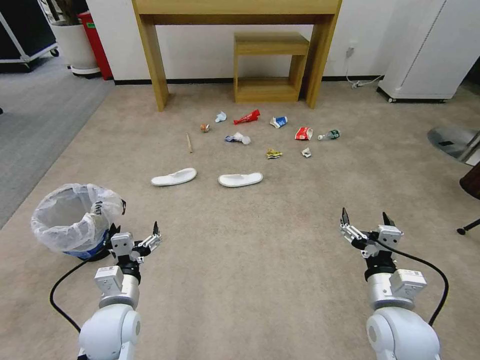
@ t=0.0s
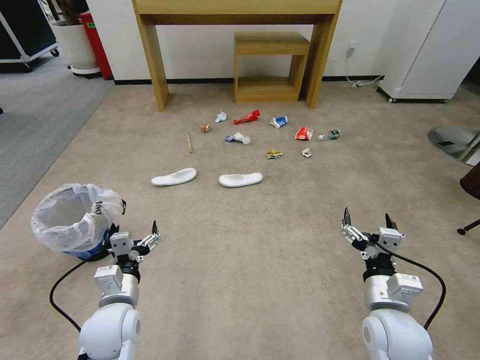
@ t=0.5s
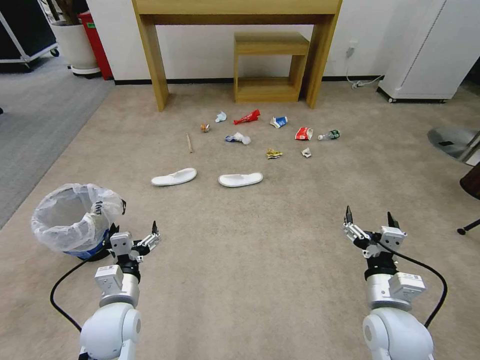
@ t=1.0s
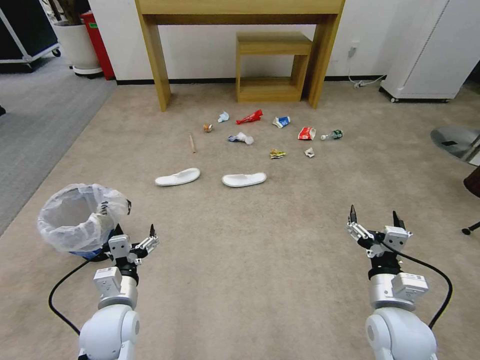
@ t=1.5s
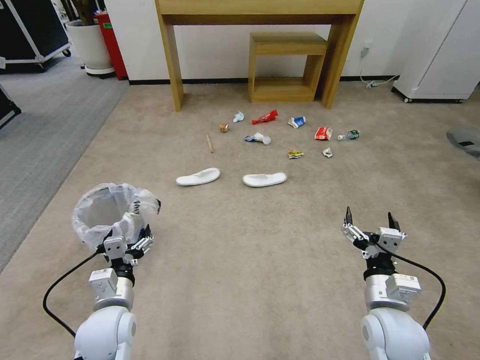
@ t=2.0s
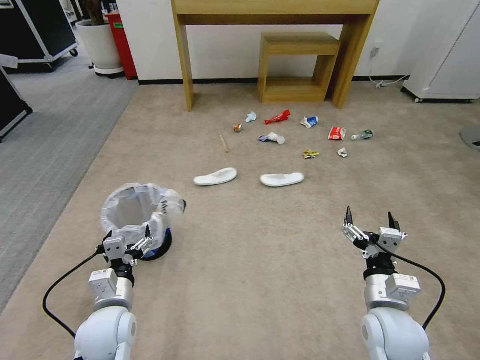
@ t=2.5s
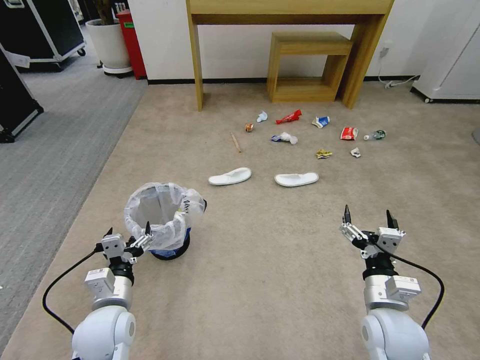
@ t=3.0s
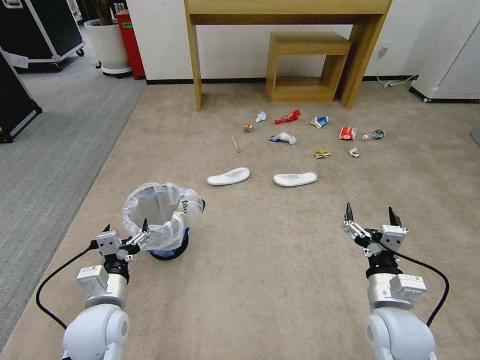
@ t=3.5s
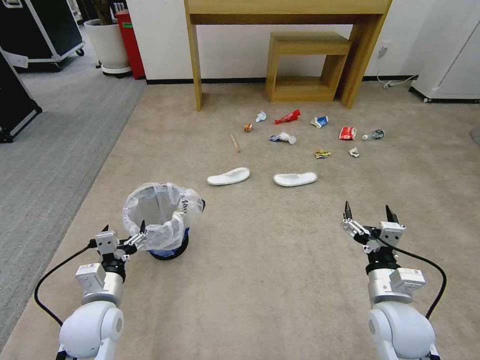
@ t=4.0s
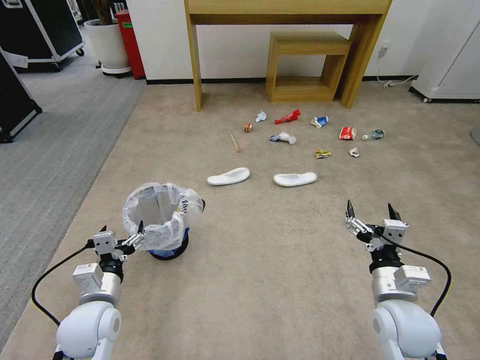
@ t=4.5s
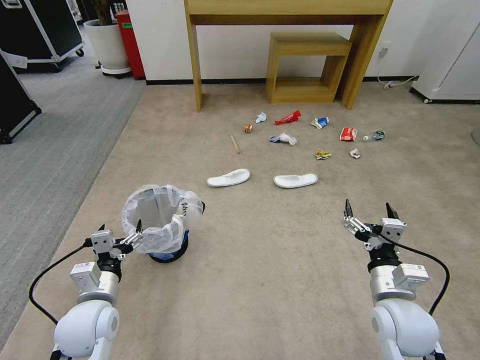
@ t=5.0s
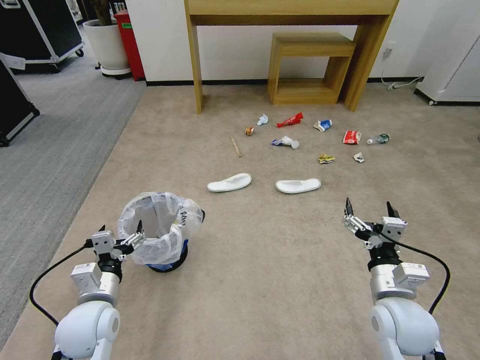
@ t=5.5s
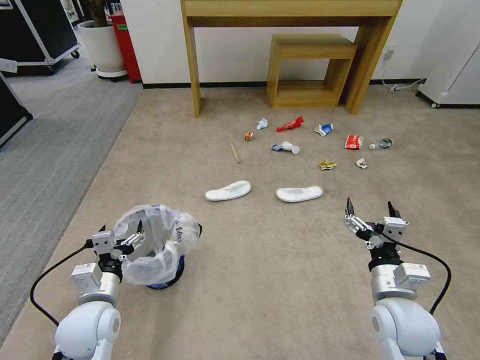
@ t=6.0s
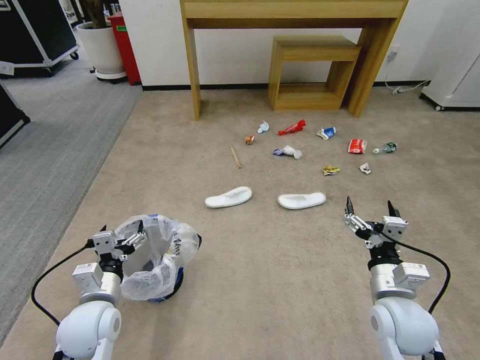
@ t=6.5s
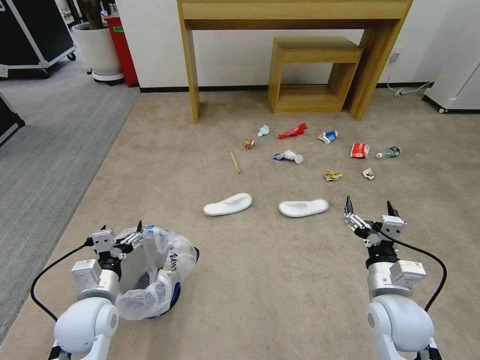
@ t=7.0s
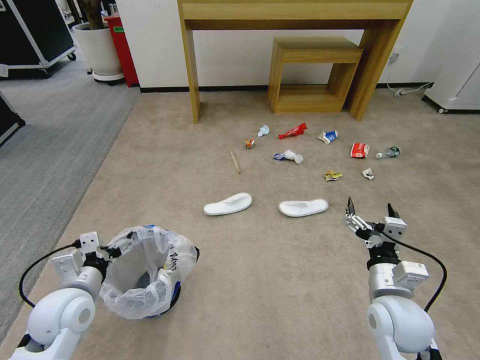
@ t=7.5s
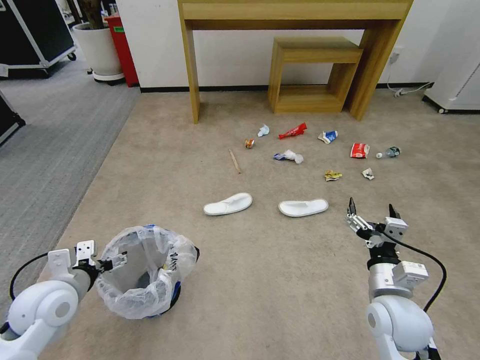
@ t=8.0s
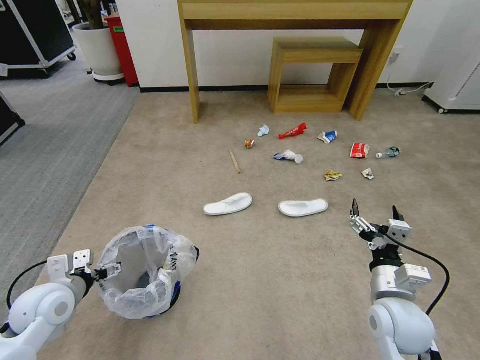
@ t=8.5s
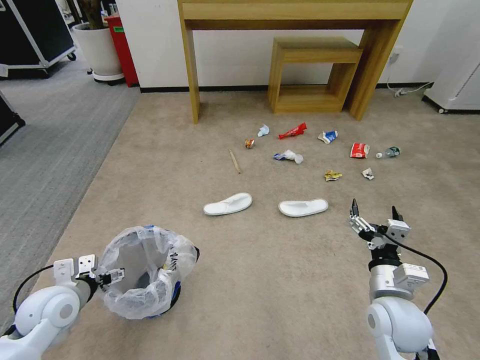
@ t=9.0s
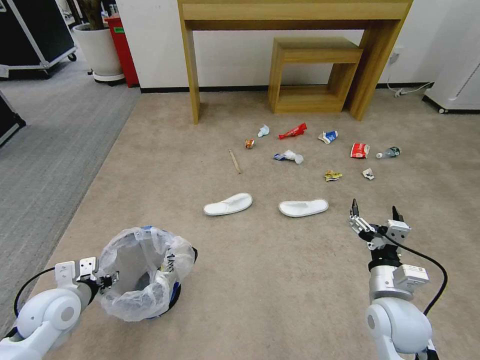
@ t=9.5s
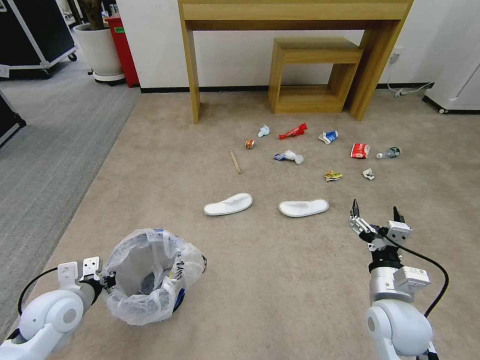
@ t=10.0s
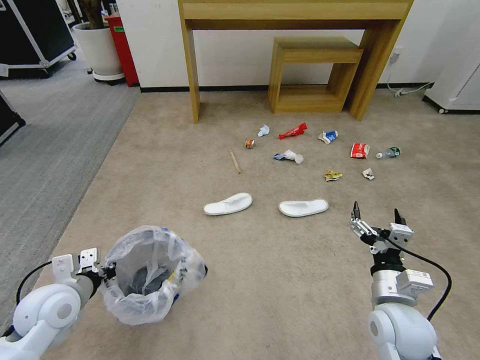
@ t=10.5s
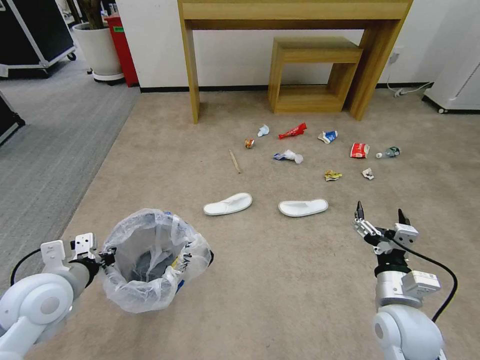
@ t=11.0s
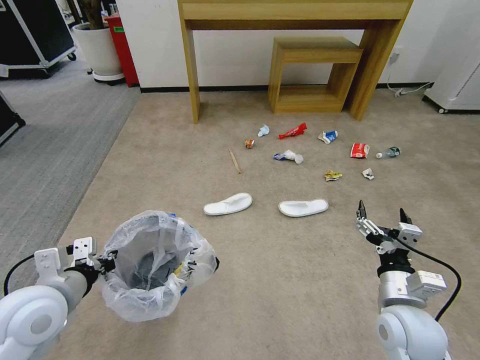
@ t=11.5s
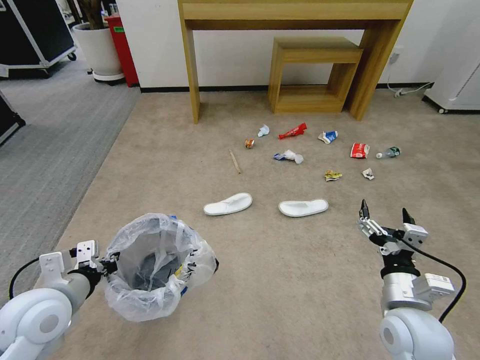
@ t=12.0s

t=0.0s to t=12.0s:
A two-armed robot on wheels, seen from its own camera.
Task of the whole recording: Pick up the trash bin and place the garbage on the floor into it.
t=4.0s to t=6.0s: Both grippers stay about where they are.
t=6.0s to t=8.0s: The left gripper shifts approximately 5 cm to the left.
t=8.0s to t=10.0s: The left gripper closes up.
t=10.0s to t=12.0s: The left gripper moves upward, approximately 10 cm.

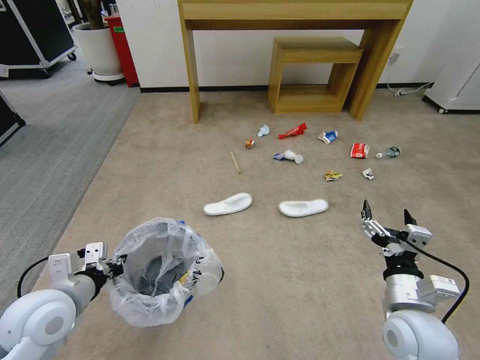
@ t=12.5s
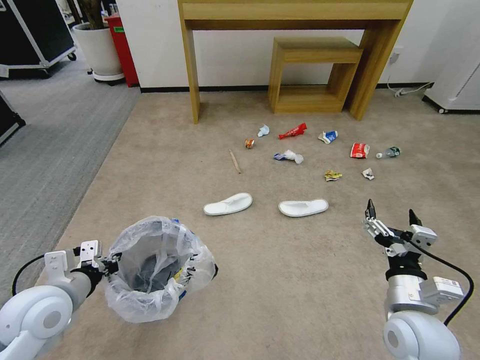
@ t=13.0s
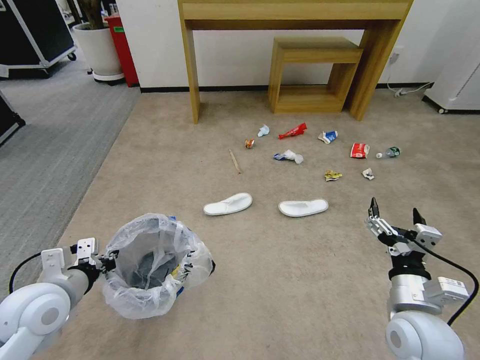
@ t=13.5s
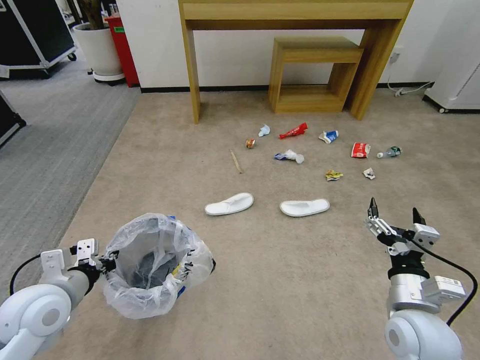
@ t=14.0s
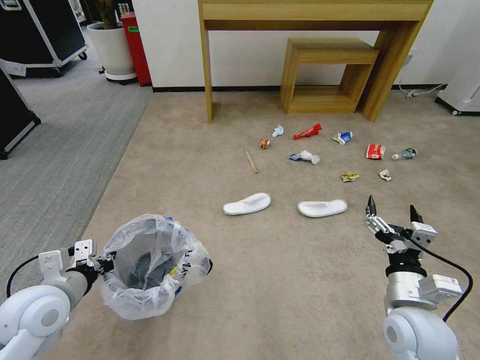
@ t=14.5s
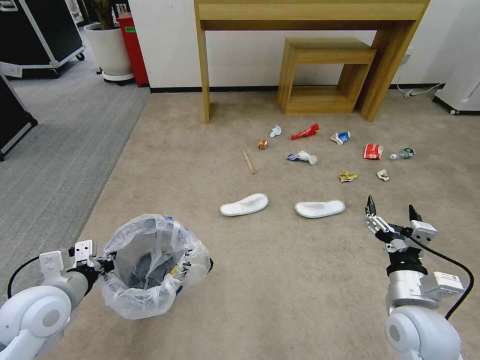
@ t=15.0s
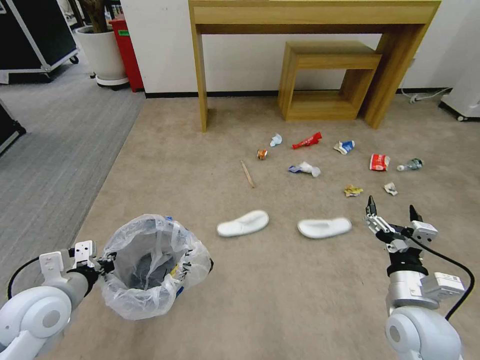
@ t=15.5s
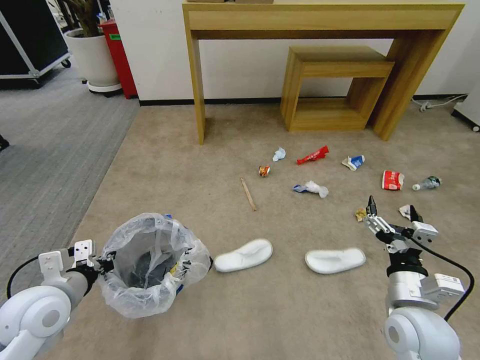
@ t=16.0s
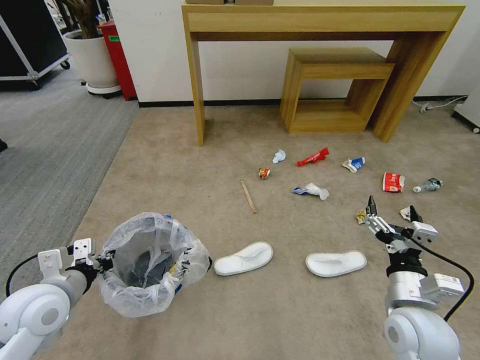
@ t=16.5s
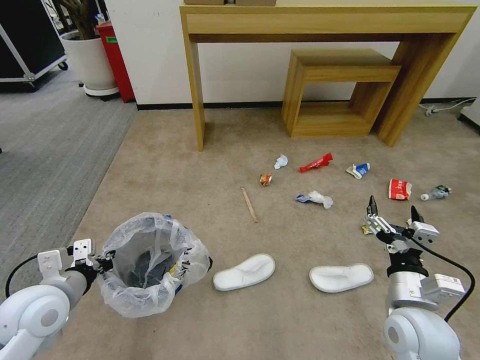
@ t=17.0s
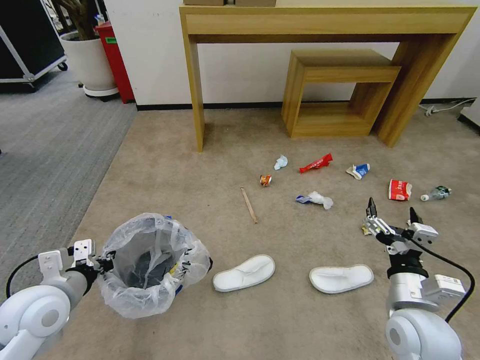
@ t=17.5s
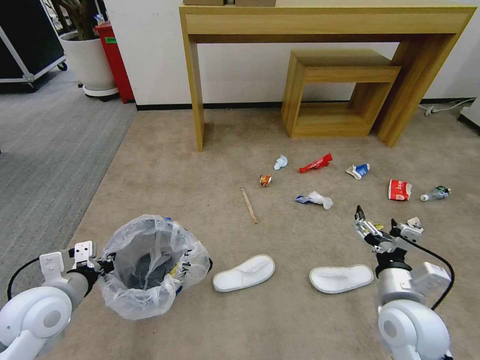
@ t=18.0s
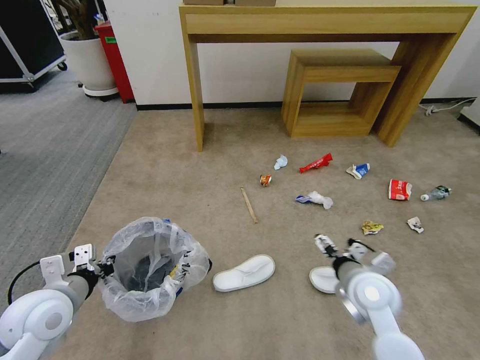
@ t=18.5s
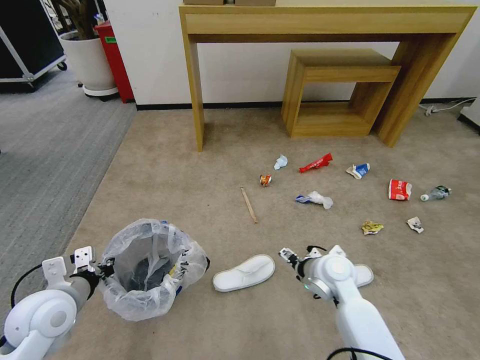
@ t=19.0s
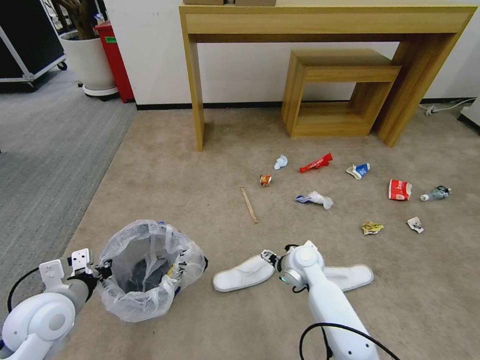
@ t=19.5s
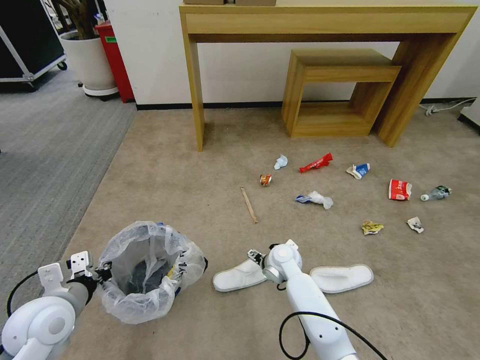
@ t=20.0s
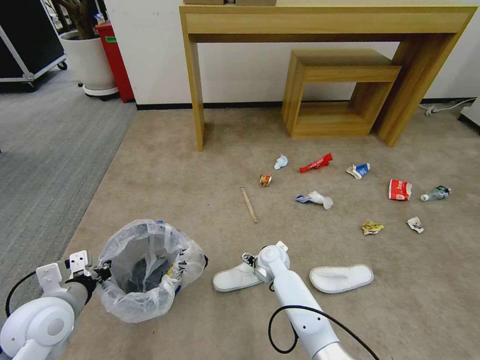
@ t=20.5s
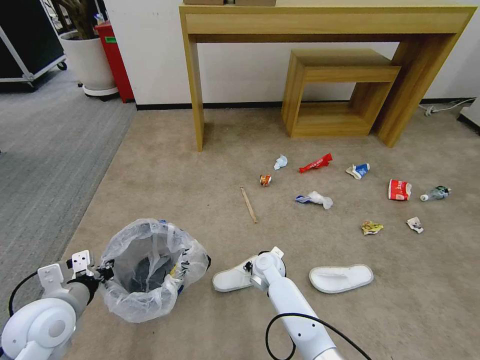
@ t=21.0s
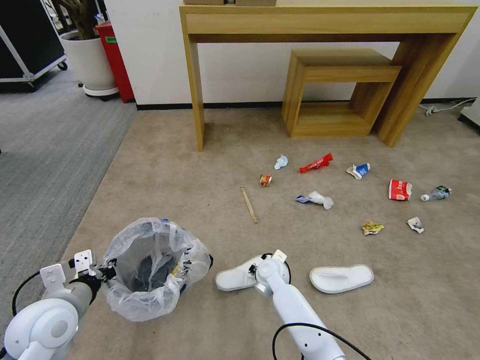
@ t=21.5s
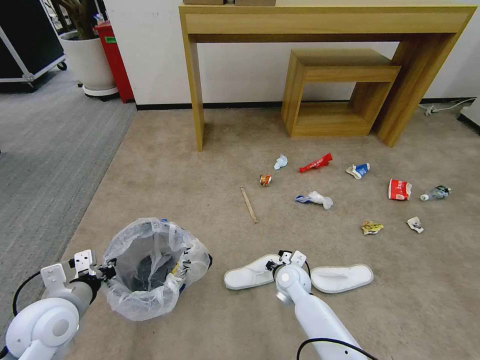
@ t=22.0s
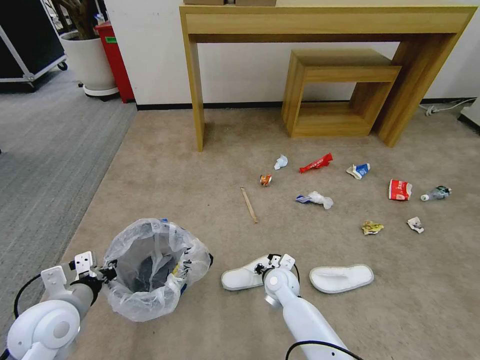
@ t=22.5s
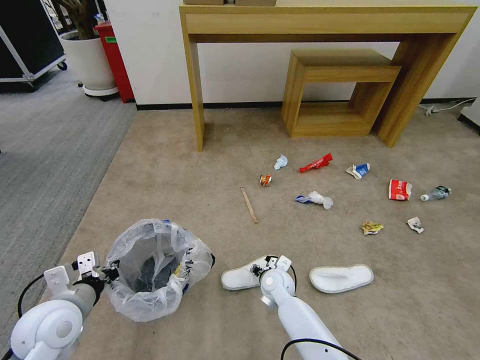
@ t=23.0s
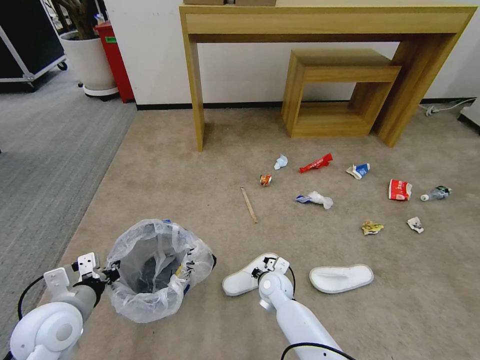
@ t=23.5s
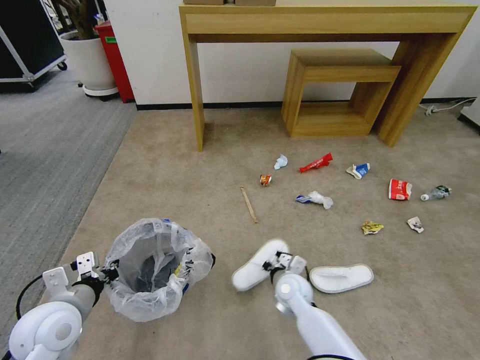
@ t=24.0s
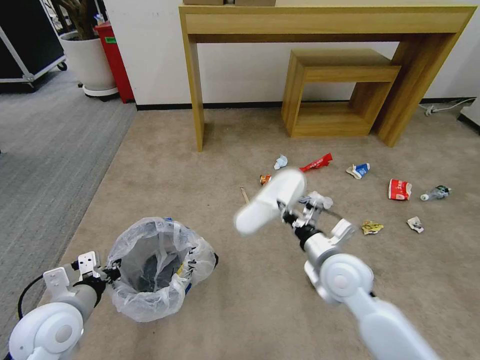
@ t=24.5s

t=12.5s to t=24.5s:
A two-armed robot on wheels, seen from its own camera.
Task of the whole recording: Pick up the trash bin and place the garbage on the floor into it.
t=16.5s to t=18.5s: The right gripper moves forward, about 5 cm.
t=18.5s to t=20.5s: The right gripper moves to the left, forward and downward, roughly 25 cm.
t=20.5s to t=22.5s: The right gripper heads backward, covering approximately 5 cm, and closes its fingers.
t=22.5s to t=24.5s: The right gripper shifts roughly 20 cm upward and to the right.

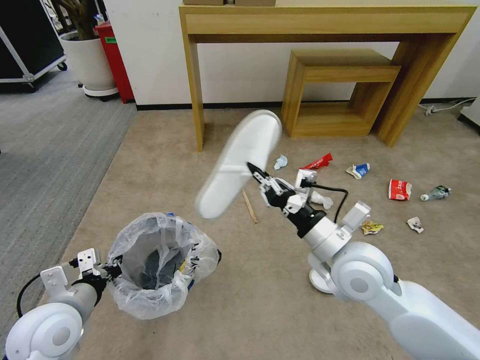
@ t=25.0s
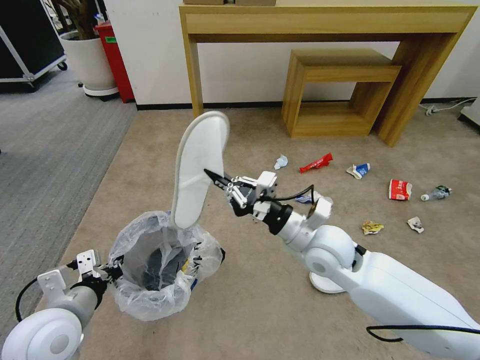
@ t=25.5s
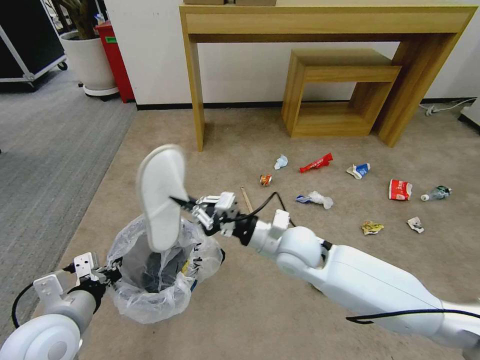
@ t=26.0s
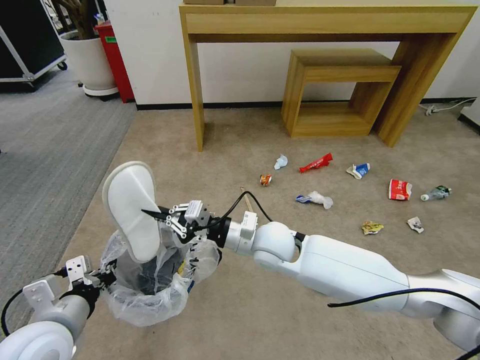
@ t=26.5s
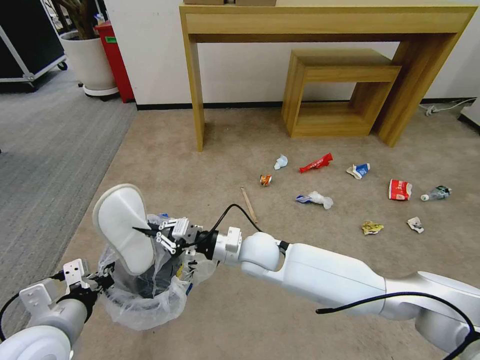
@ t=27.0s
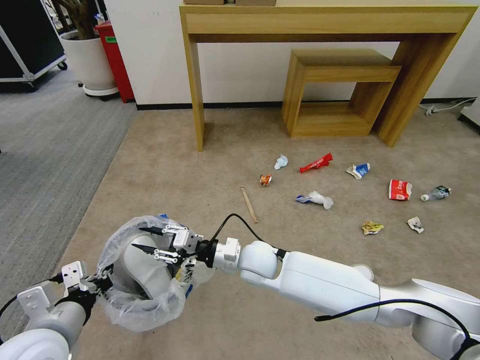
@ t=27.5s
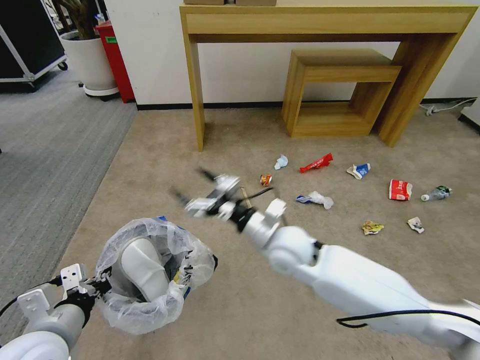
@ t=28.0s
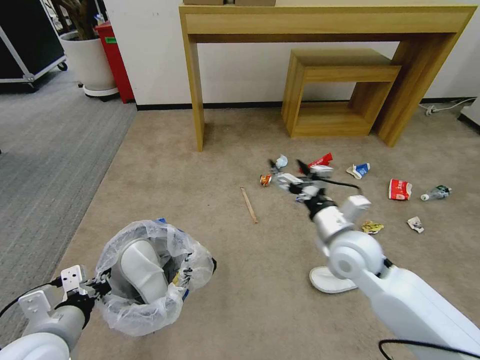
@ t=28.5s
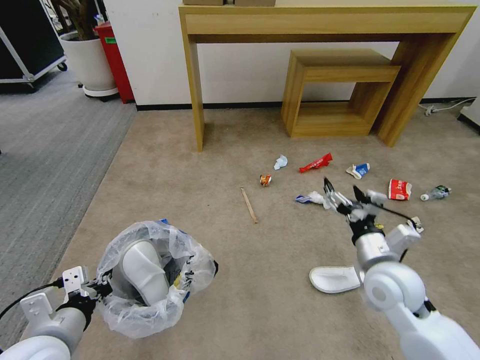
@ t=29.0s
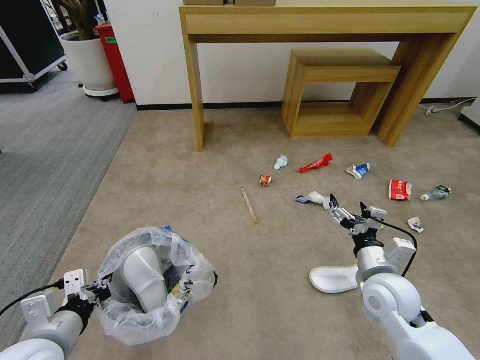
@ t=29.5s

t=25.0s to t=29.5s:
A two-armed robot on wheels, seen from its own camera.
Task of the whole recording: Pick up the trash bin and place the garbage on the floor into it.
t=25.0s to t=27.0s: The right gripper goes about 20 cm to the left, downward and forward.
t=27.0s to t=29.5s: The right gripper is displaced to the right by about 25 cm, and opens up.
